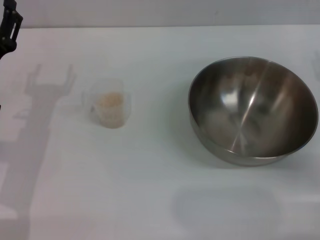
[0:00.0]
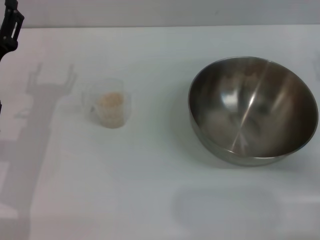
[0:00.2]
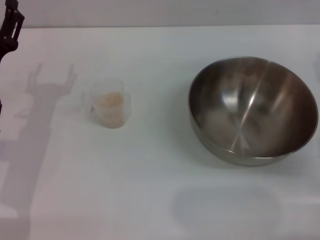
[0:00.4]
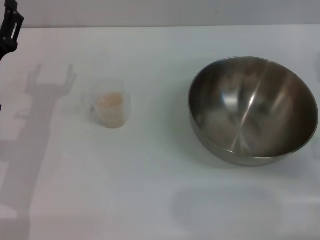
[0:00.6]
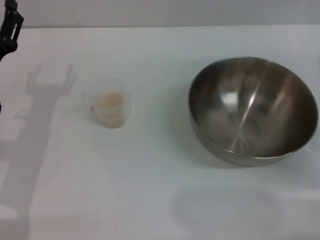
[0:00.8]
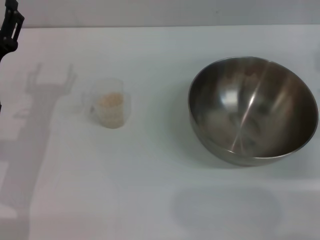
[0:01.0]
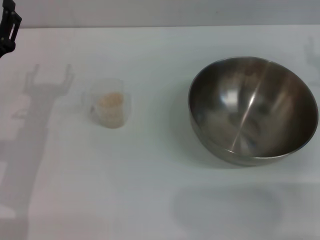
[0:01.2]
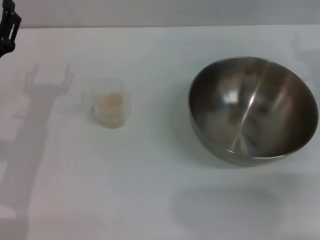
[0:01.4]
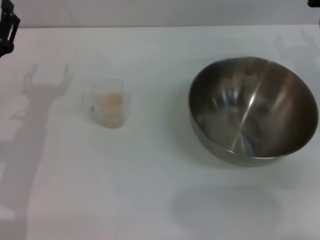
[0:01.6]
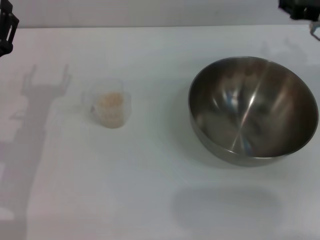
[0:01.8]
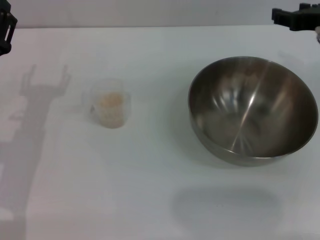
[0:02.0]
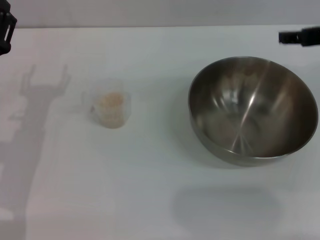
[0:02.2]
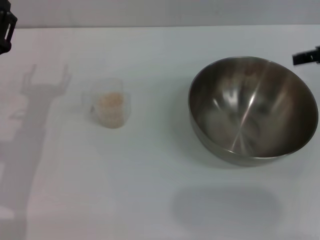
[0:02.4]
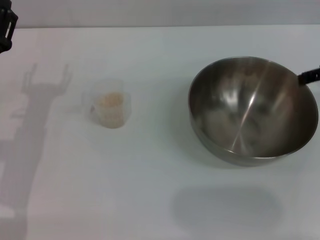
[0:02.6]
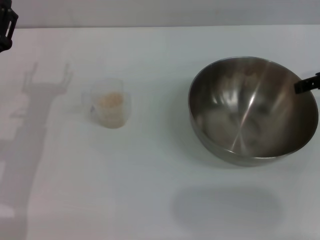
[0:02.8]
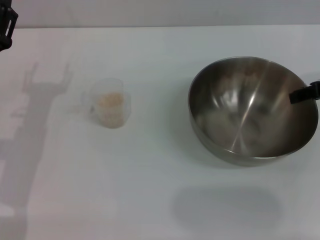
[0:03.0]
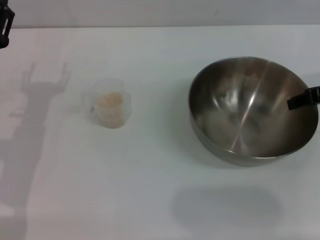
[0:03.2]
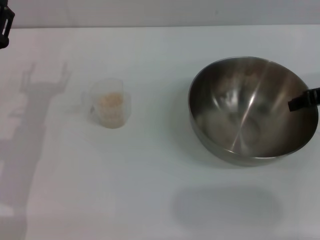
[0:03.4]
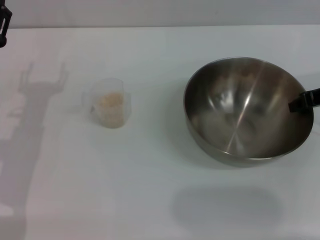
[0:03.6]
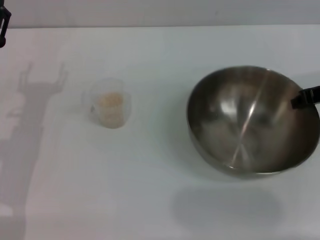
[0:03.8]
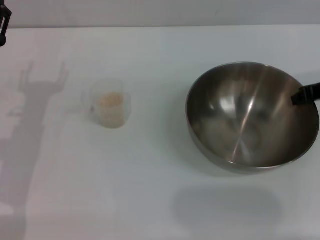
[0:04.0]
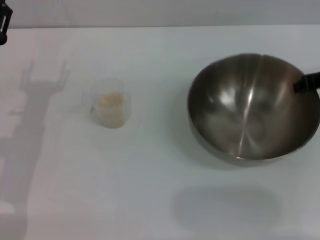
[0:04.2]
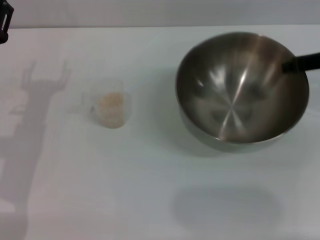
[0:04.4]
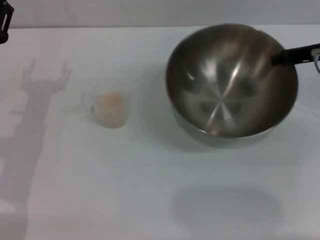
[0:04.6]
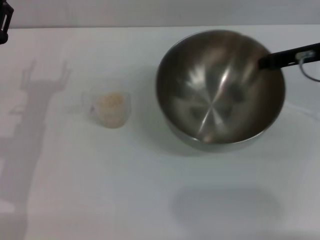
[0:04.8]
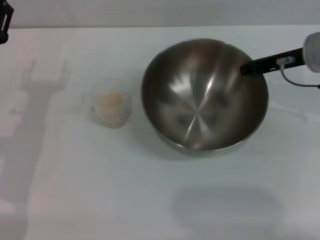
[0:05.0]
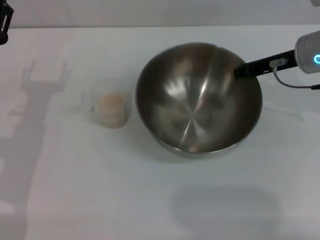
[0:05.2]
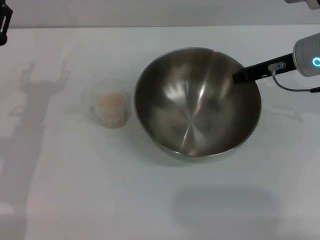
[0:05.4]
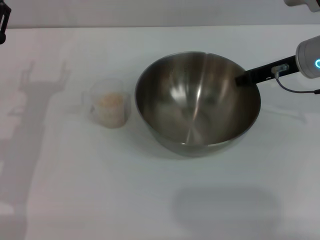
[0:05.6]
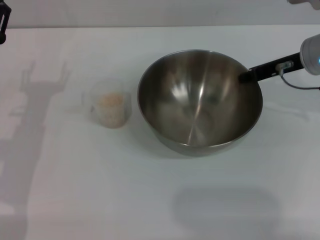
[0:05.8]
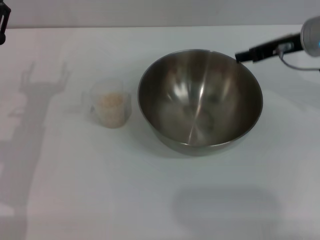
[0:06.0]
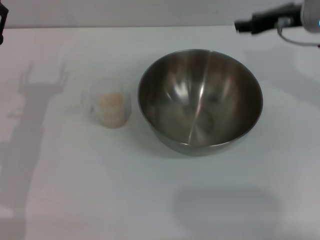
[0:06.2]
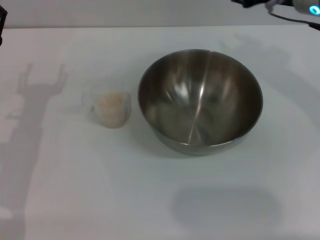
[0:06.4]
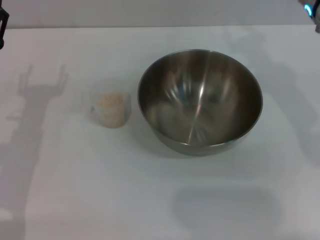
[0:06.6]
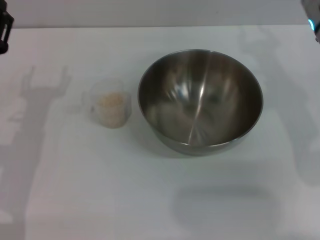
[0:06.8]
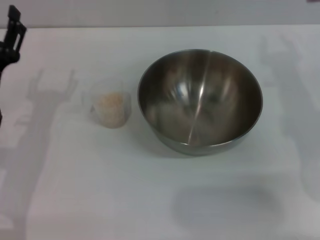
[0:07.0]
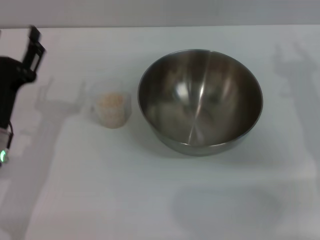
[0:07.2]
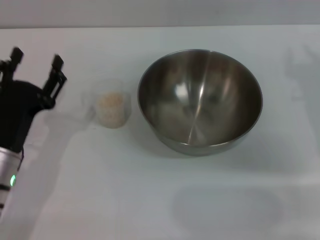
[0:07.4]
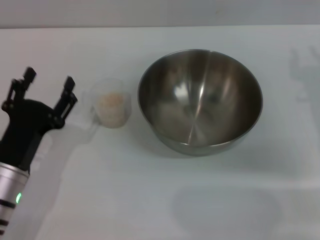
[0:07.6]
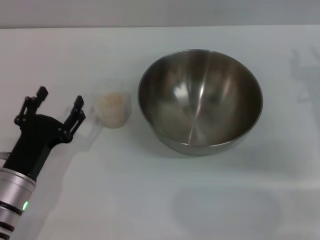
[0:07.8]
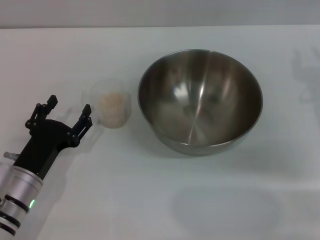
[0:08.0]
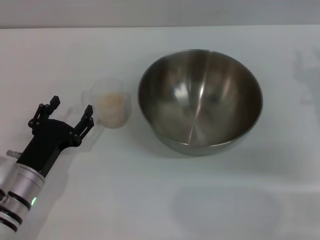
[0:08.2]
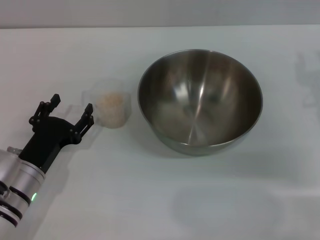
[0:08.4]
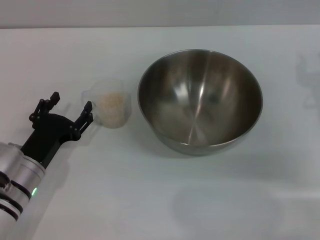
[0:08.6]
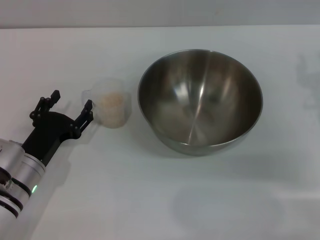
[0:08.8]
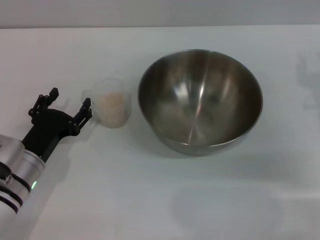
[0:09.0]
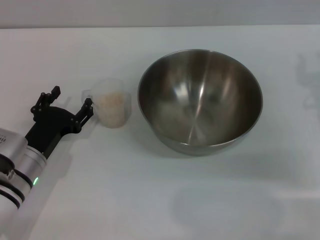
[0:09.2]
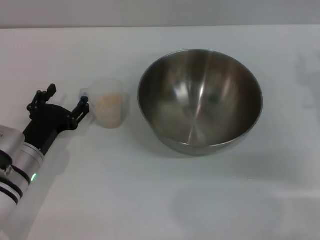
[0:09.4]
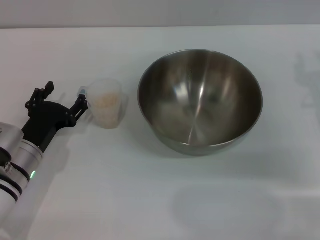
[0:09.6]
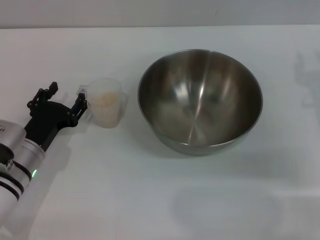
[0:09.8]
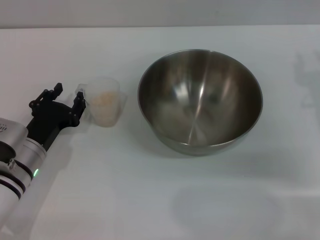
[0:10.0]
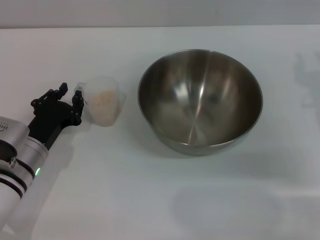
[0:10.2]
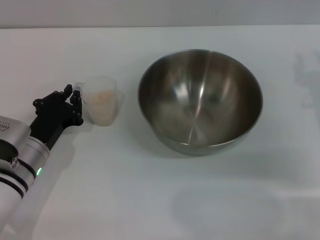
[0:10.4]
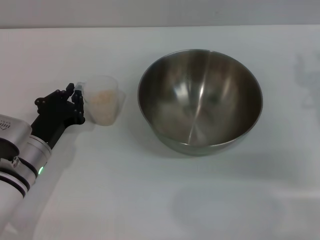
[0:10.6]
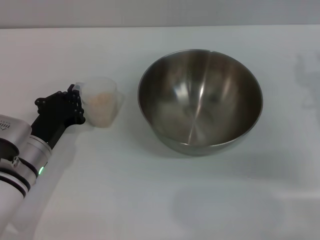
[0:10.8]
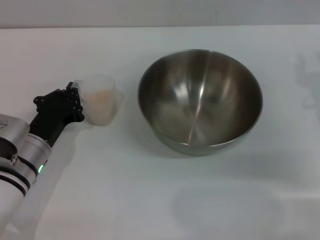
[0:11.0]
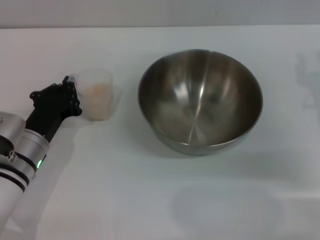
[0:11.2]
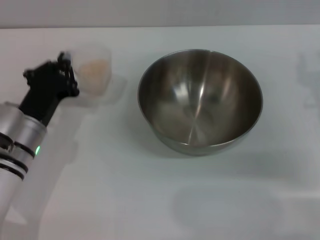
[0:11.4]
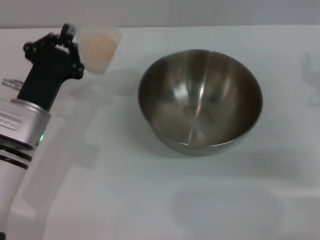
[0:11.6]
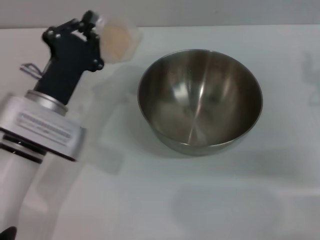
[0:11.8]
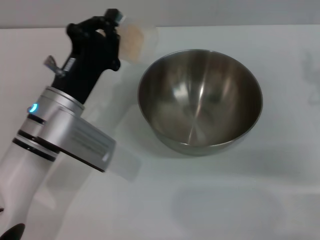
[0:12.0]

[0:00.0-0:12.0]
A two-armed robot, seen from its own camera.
Task of the whole recording: Place the bowl in the middle of the table with one hand and pour the rice from the grain cup into it with the other hand.
Step, 0:00.0 to 0:04.4: Pick up the bowl with the right gripper.
Step, 0:04.6 to 0:06.0: Place the bowl in the center of view with the right gripper.
Step, 0:06.2 to 0:11.4: Pick up the cup with rice in it with the left gripper.
0:00.0 to 0:01.6: The right gripper goes approximately 5 cm forward.
0:01.6 to 0:03.0: The right gripper moves about 5 cm.
0:03.0 to 0:04.4: The right gripper closes.
0:04.4 to 0:06.0: The right gripper moves to the left, roughly 5 cm, and opens its fingers.
0:06.0 to 0:07.6: The two grippers go roughly 10 cm backward and downward.
0:07.6 to 0:09.0: There are only small adjustments of the grippers.
0:09.0 to 0:10.4: The left gripper closes its fingers.
0:10.4 to 0:12.0: The left gripper is displaced upward and to the right by about 10 cm, and closes its fingers.

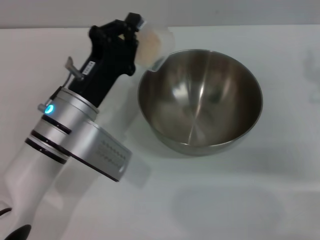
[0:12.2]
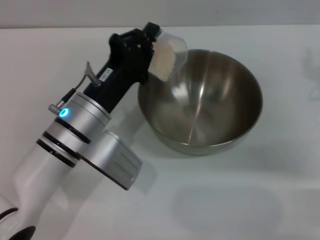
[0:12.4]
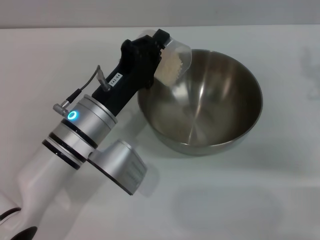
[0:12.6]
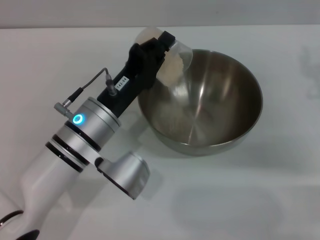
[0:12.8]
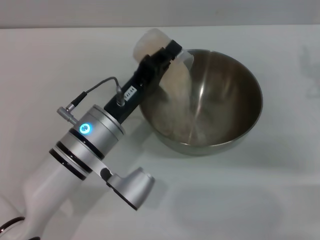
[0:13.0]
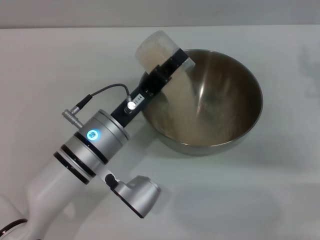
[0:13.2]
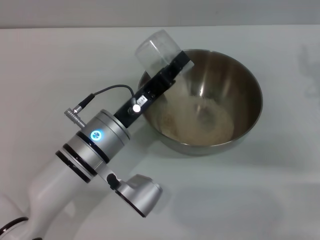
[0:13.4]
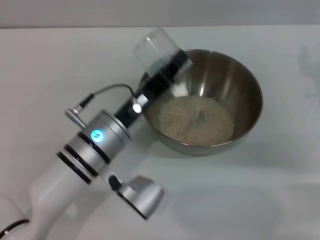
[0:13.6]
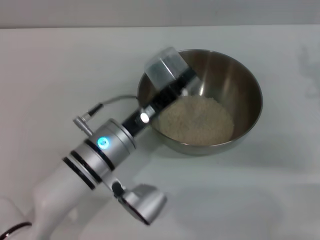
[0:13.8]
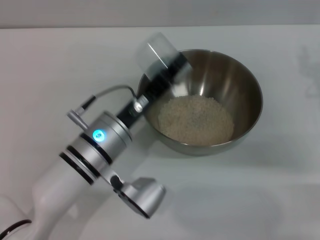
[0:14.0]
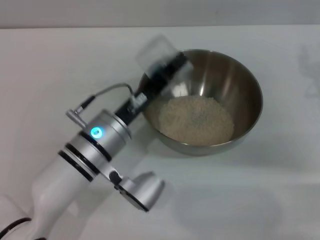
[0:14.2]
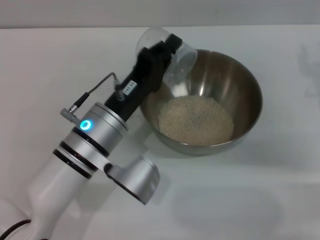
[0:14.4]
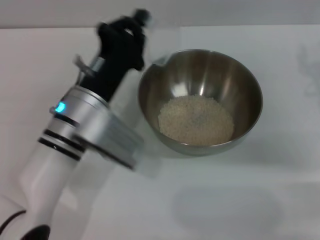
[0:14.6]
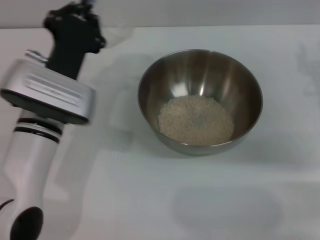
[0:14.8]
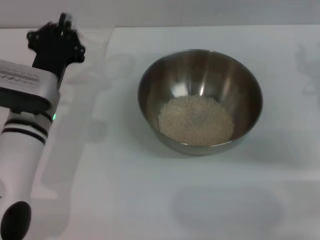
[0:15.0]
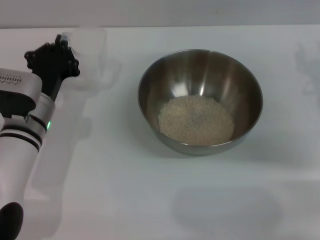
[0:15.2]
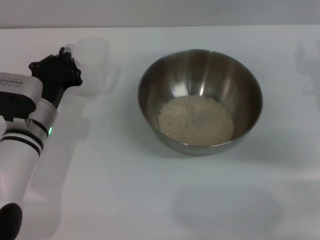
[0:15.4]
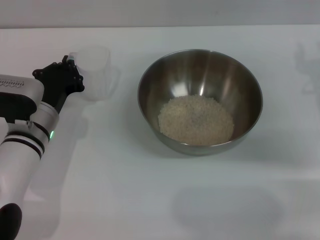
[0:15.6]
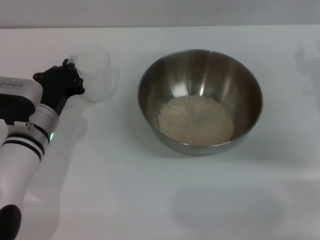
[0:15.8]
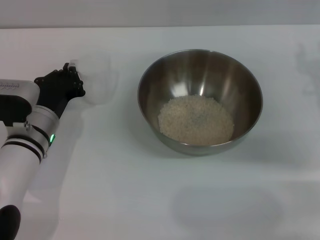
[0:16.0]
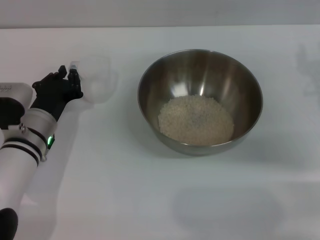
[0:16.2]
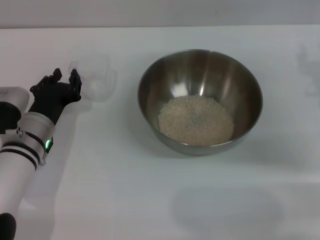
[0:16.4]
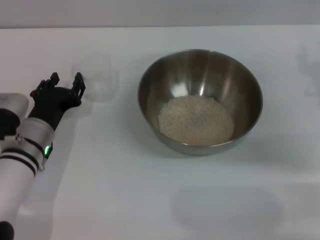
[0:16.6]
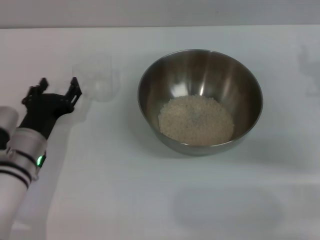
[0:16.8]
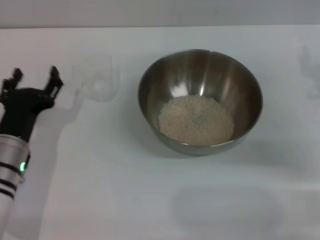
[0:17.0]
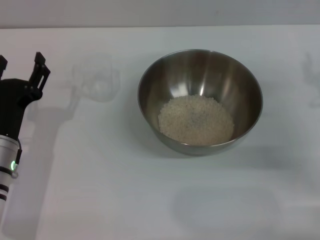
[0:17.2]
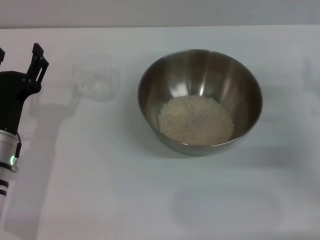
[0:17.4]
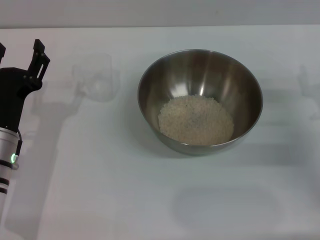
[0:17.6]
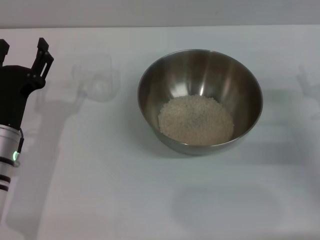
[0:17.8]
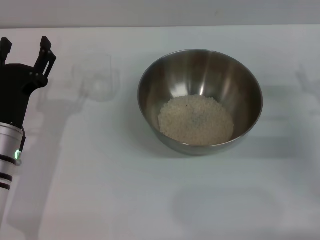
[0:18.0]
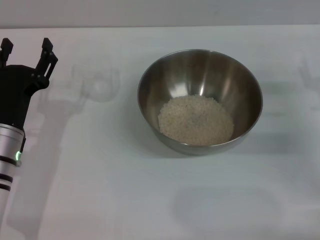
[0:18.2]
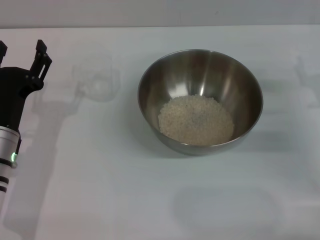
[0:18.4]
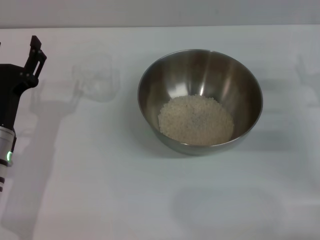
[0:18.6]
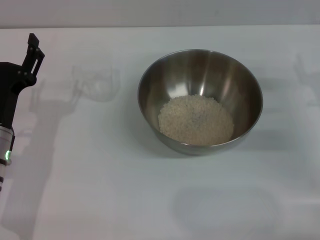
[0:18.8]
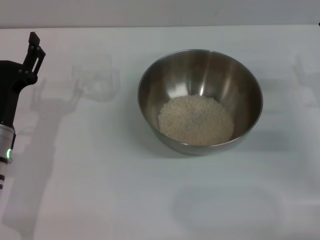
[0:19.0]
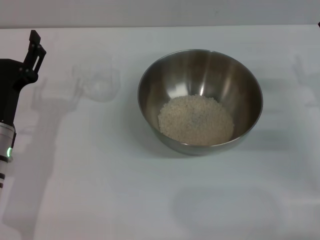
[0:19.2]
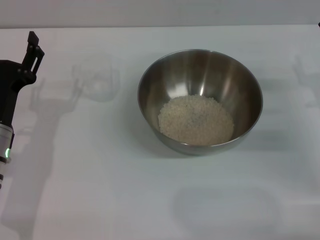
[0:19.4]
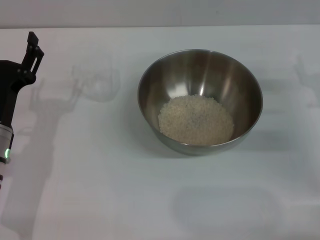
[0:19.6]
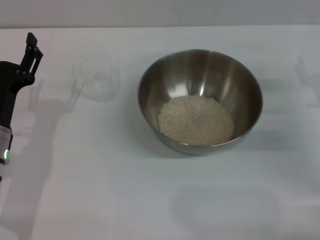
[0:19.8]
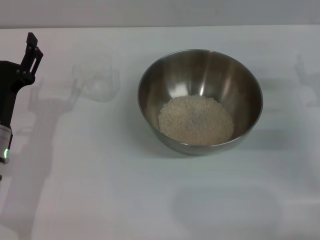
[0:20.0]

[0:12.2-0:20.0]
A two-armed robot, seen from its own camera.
Task of the whole recording: Place the bowl in the middle of the table with one hand and pour the rice from the grain cup into it with the other hand.
Step, 0:12.2 to 0:14.0: Pour the rice from the cup into the bowl with the left gripper.
Step, 0:14.4 to 0:16.8: Place the cup on the table with the left gripper.
0:13.8 to 0:15.4: The left gripper moves to the left and forward, approximately 10 cm.
0:15.4 to 0:16.8: The left gripper opens.
0:18.4 to 0:20.0: Neither gripper changes place.
